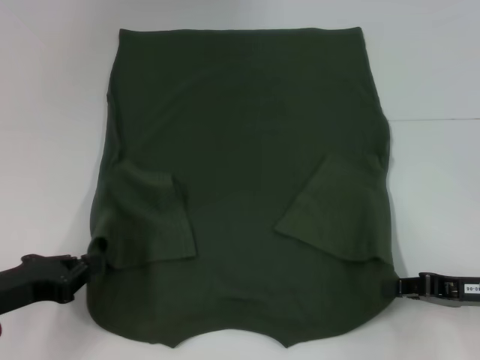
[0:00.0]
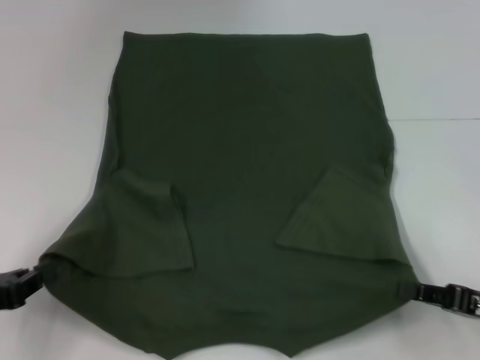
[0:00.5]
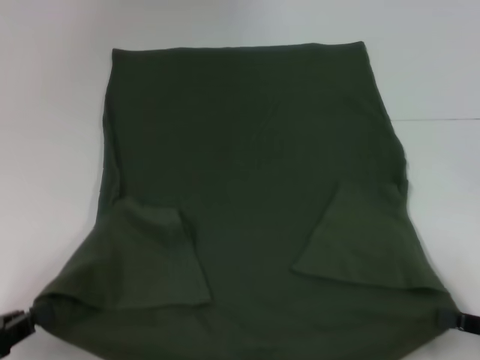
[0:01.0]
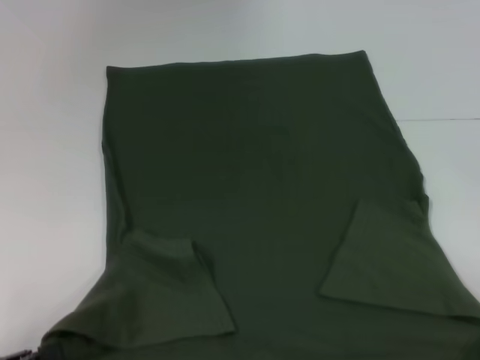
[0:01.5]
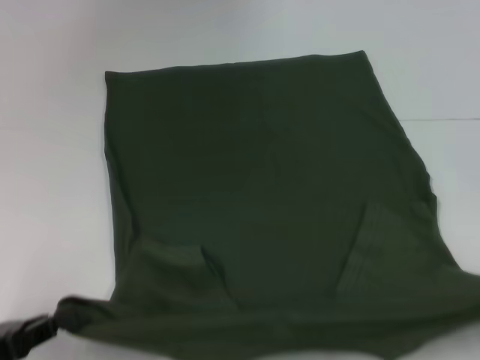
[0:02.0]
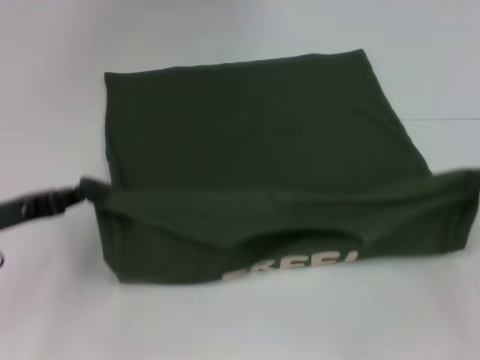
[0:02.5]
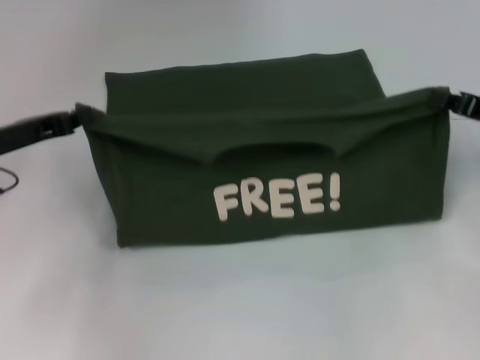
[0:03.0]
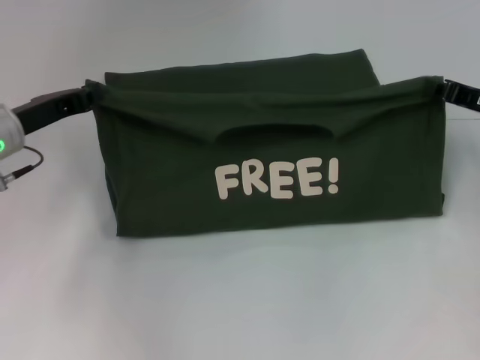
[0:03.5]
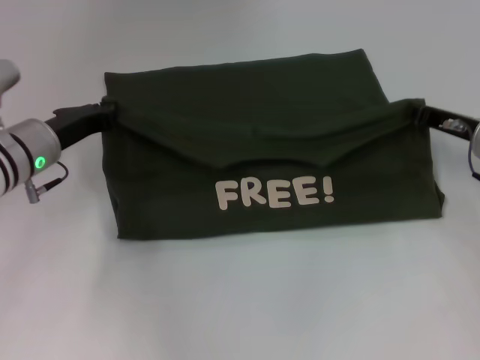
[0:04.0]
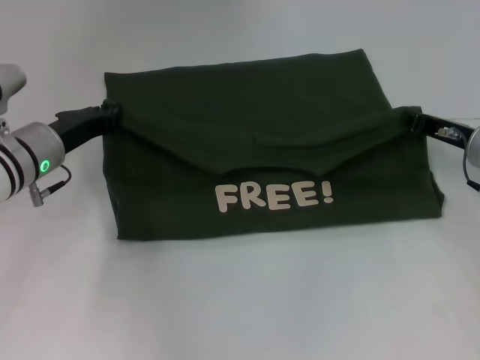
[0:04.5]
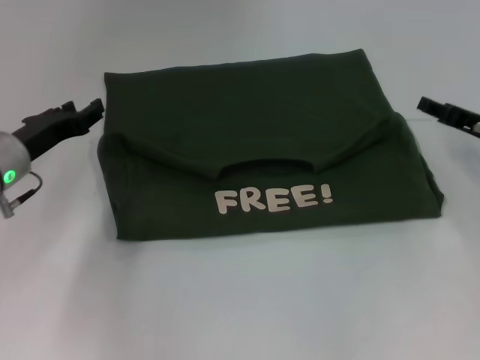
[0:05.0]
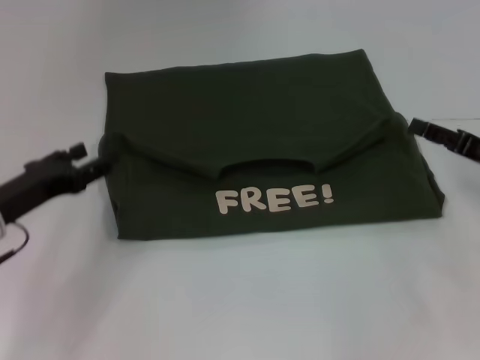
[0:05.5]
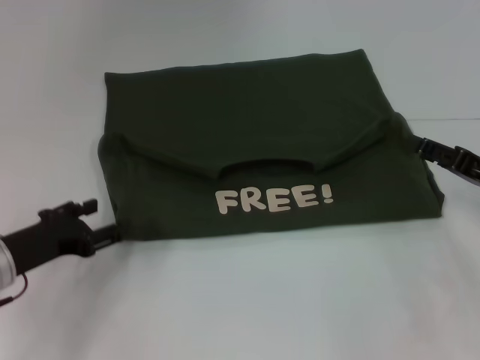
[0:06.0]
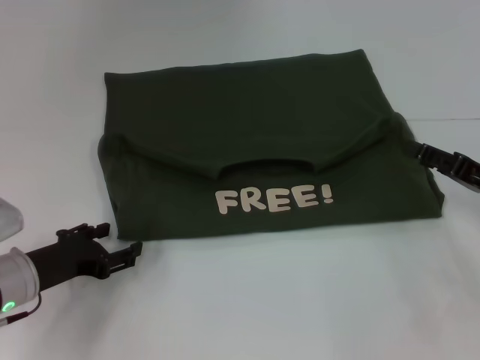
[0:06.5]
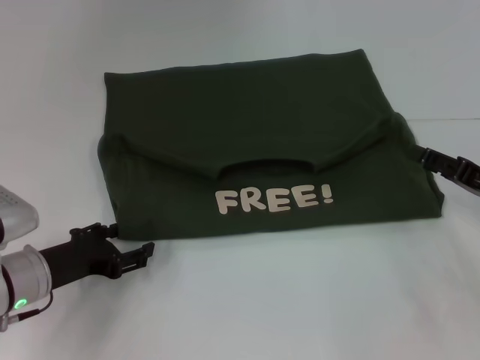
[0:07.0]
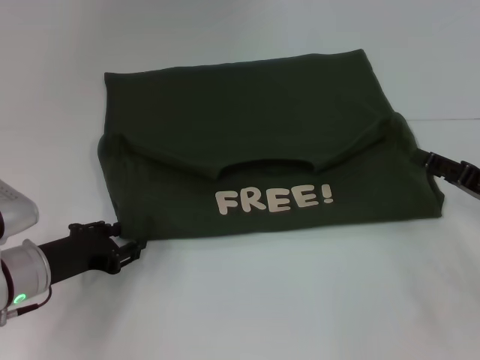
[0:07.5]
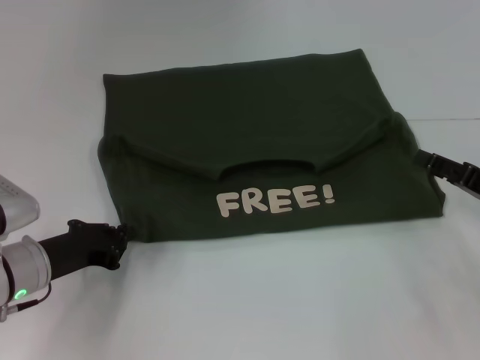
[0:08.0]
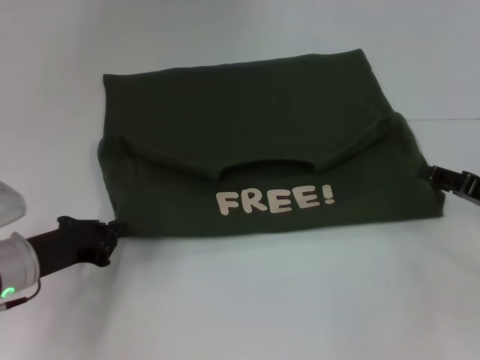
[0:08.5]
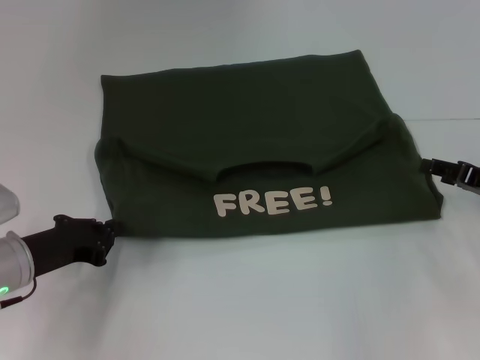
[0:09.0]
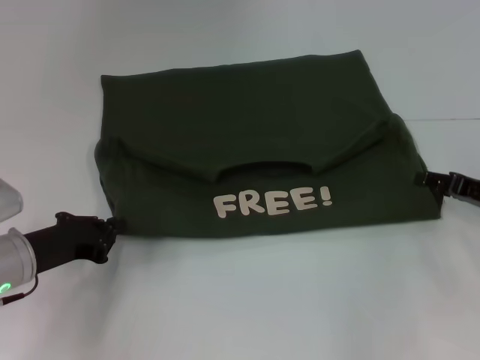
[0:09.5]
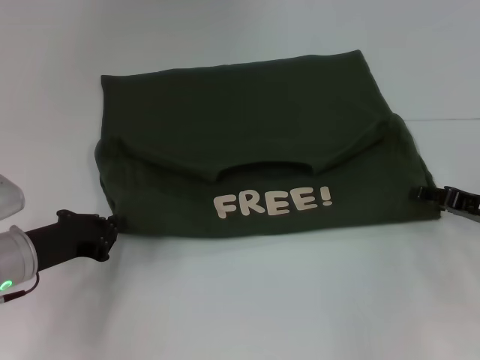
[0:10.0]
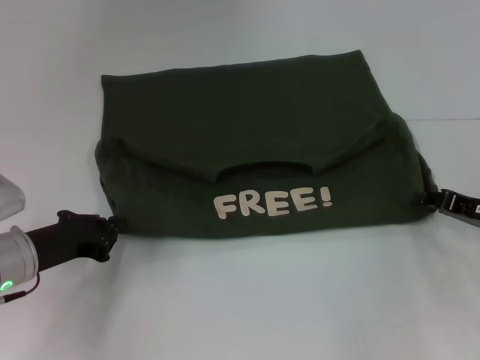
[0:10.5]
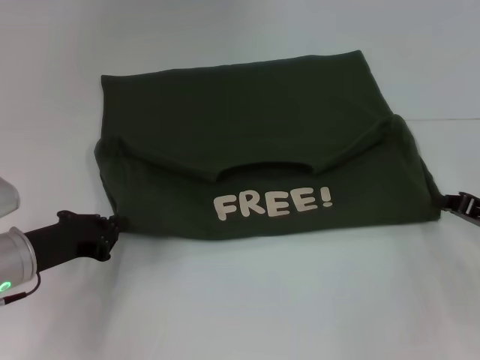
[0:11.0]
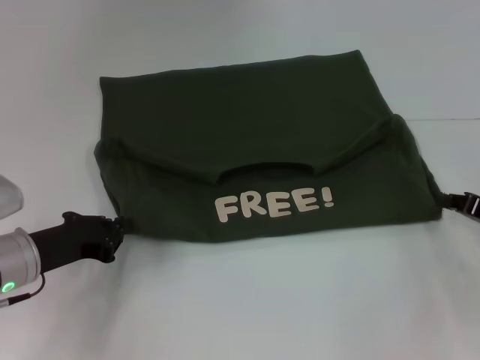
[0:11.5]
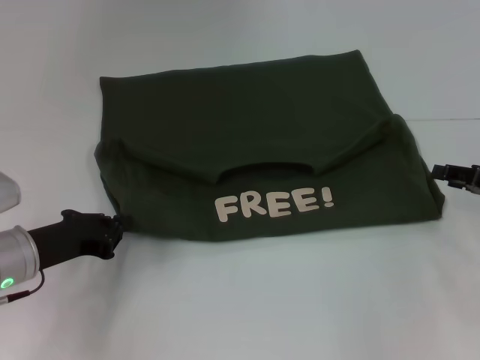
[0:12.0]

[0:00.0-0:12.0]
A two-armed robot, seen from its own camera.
Step, 0:00.5 to 0:05.0: Fold the clothes with your left hand.
Step, 0:00.5 to 0:05.0: Fold the clothes with your right hand.
0:00.0 to 0:02.0: The right gripper moves backward and to the right, roughly 15 cm. The left gripper heads backward, covering roughly 5 cm.
0:02.0 to 0:04.0: The right gripper moves forward and to the left, some 25 cm. Meanwhile the left gripper heads forward, covering about 25 cm.
0:04.0 to 0:06.0: The two grippers go roughly 10 cm backward. The left gripper opens its fingers, while the right gripper opens its fingers.
0:06.0 to 0:08.0: The left gripper closes up.
0:10.0 to 0:12.0: The right gripper closes and opens again.

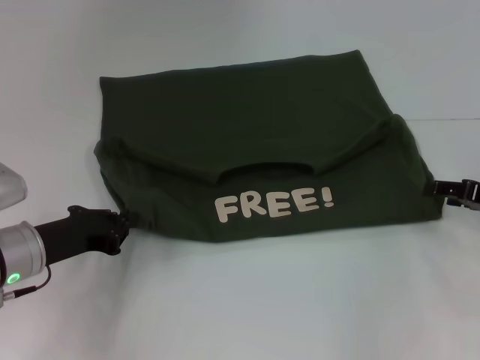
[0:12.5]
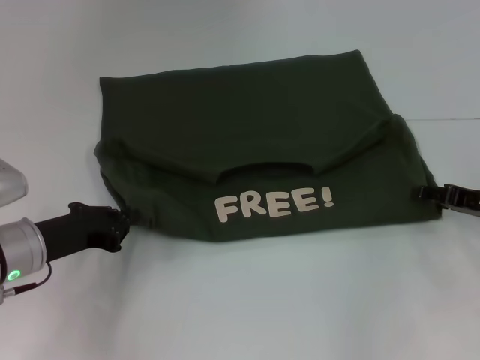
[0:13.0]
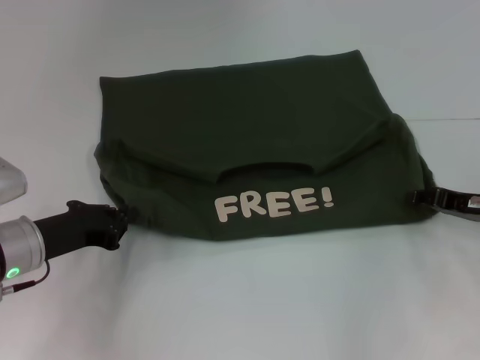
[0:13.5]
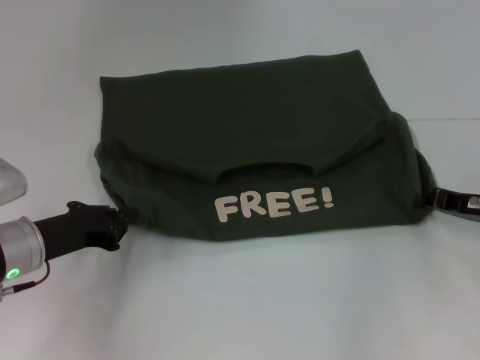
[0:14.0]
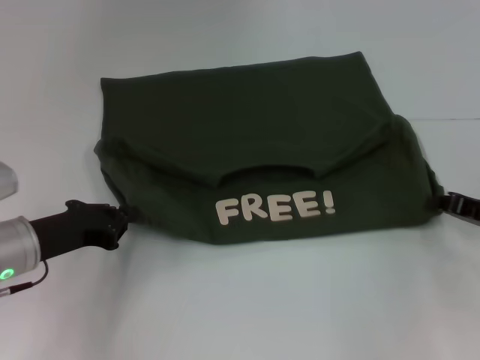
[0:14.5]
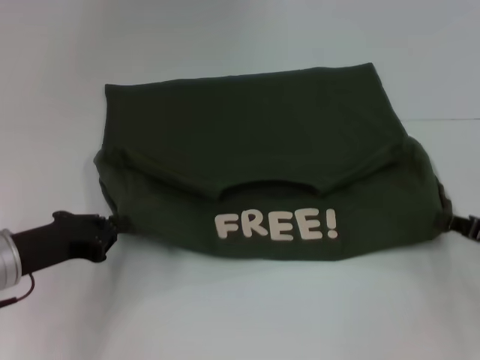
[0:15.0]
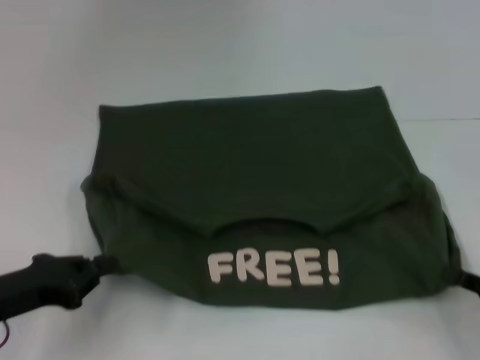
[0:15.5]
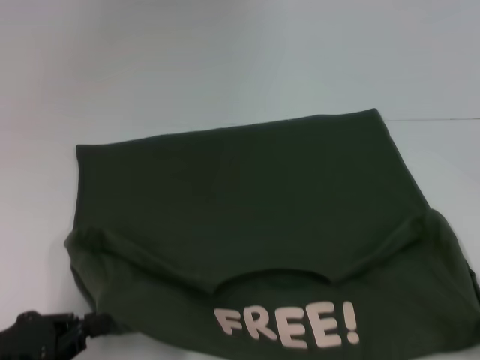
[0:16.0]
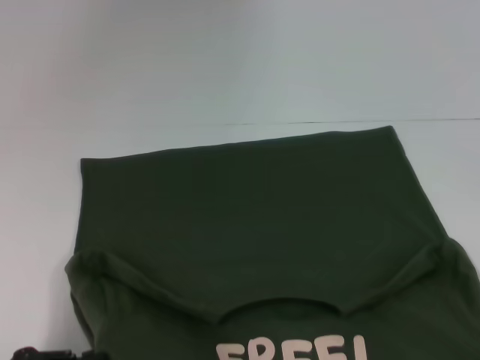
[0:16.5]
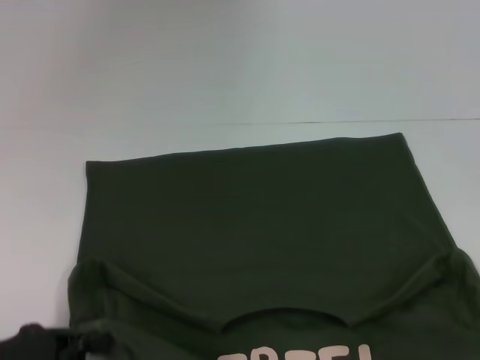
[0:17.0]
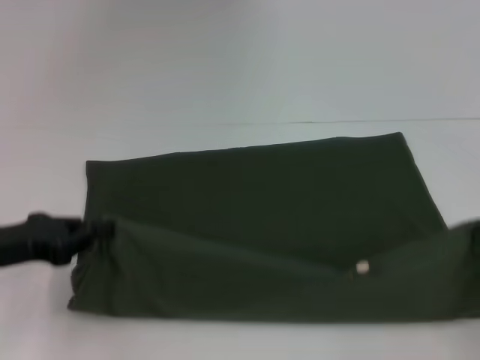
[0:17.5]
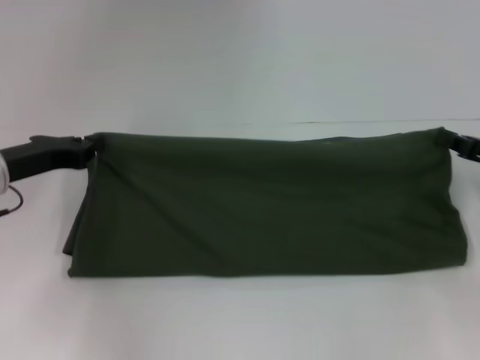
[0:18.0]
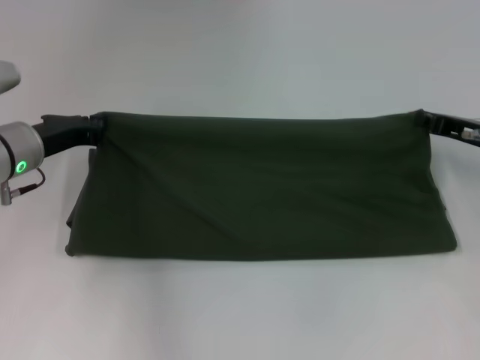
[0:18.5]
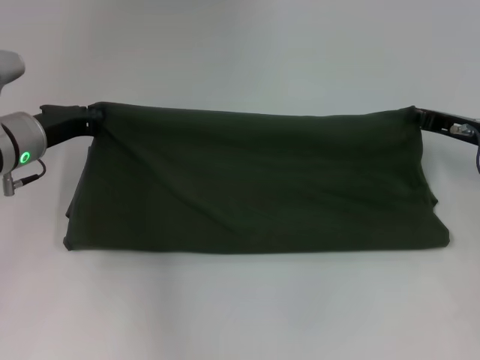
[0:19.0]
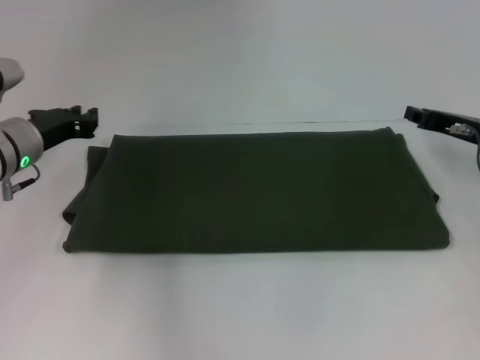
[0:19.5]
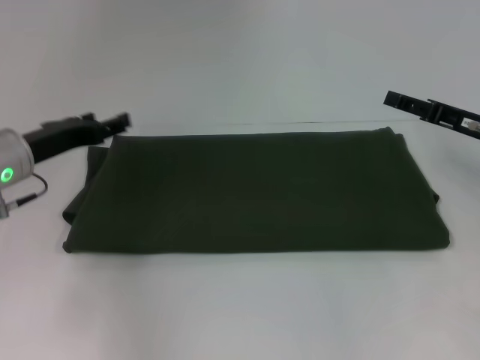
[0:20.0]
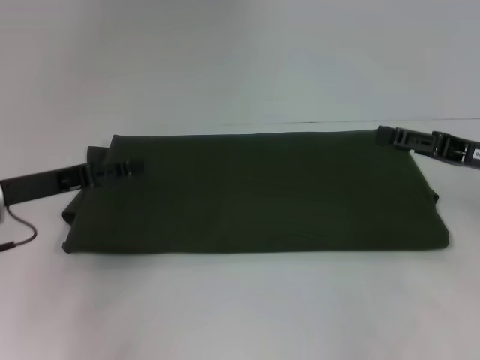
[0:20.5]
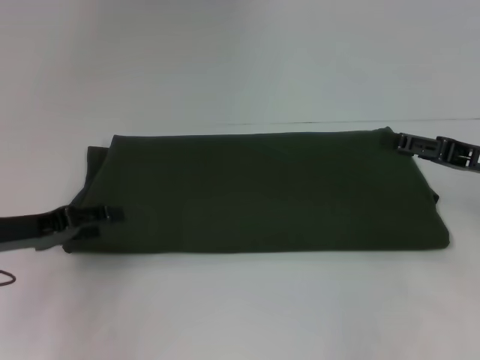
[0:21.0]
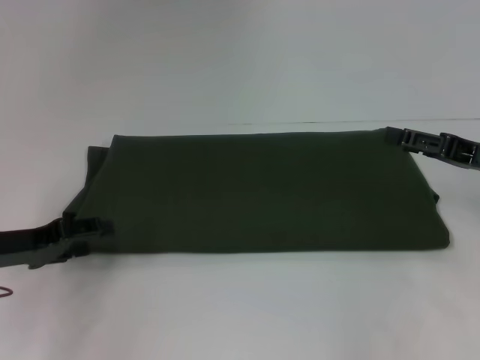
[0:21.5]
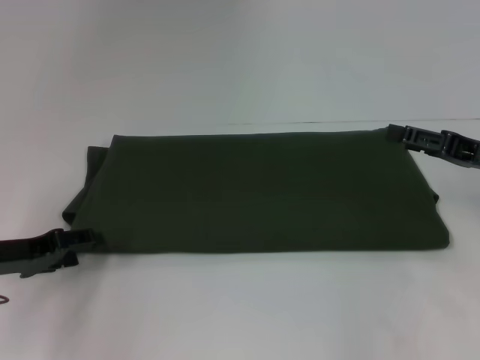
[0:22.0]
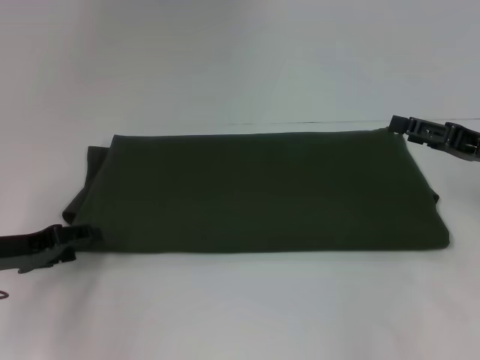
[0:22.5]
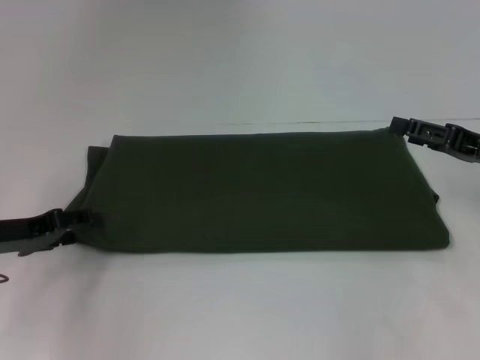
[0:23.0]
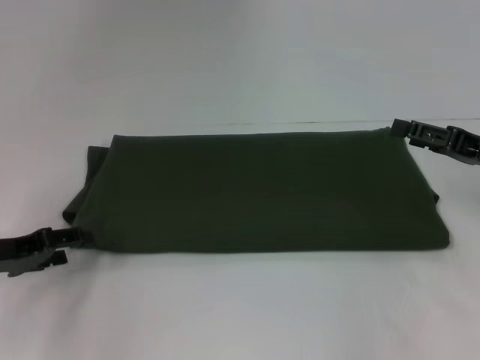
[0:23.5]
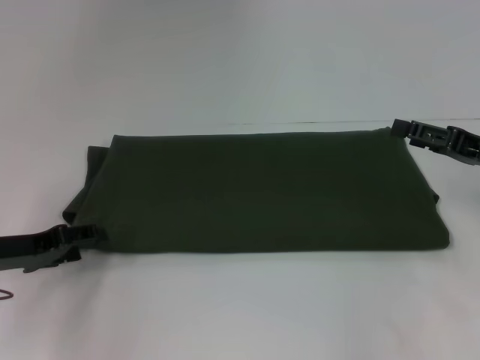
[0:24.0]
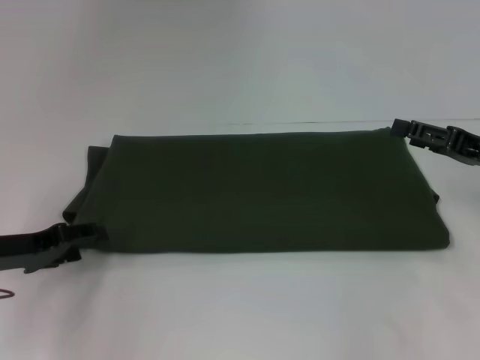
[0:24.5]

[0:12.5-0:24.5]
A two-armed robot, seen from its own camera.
Step, 0:12.5 to 0:16.5: Pull the clothes with your left hand.
Step, 0:12.5 to 0:16.5: Pull the clothes with your right hand.
Step, 0:17.0 to 0:19.5: Fold the clothes with your right hand.
0:12.5 to 0:14.5: The right gripper closes its fingers.
0:14.5 to 0:16.5: The left gripper travels backward by approximately 15 cm. The right gripper travels backward by some 25 cm.
0:16.5 to 0:18.5: Both grippers move forward, roughly 25 cm.
0:18.5 to 0:20.5: The two grippers go approximately 5 cm backward. The right gripper opens up. Meanwhile the left gripper opens.
0:20.5 to 0:22.5: The left gripper goes approximately 5 cm downward.
0:22.5 to 0:24.5: There are only small adjustments of the grippers.

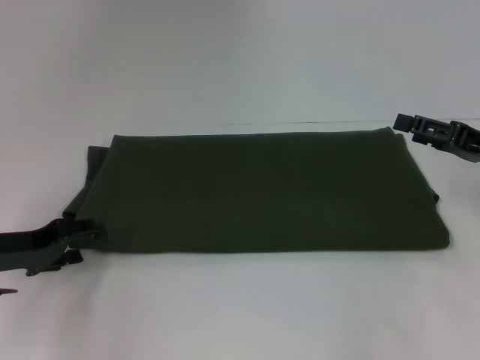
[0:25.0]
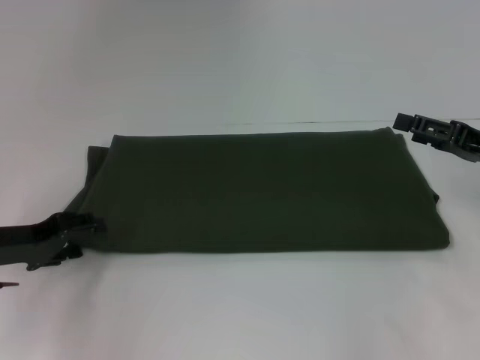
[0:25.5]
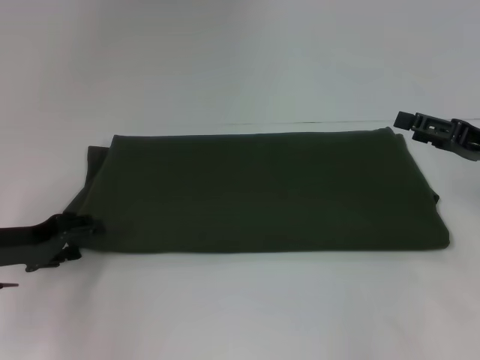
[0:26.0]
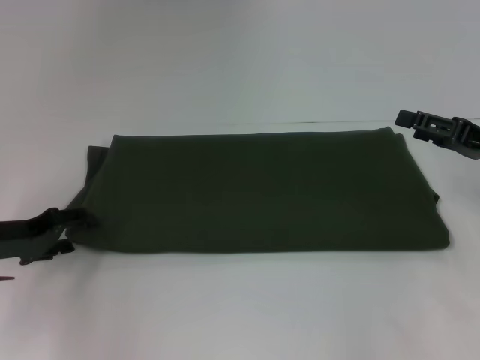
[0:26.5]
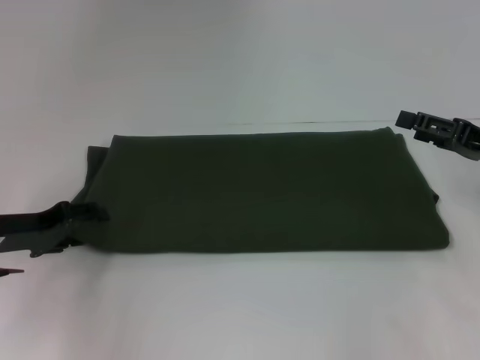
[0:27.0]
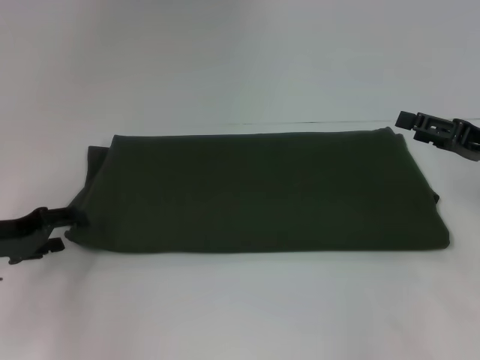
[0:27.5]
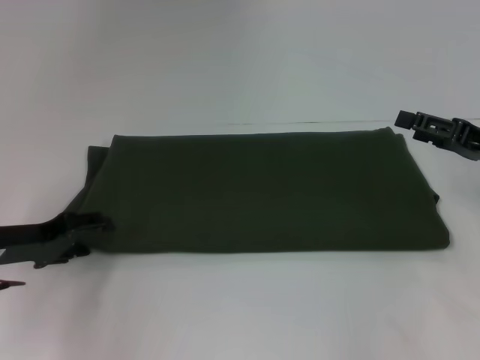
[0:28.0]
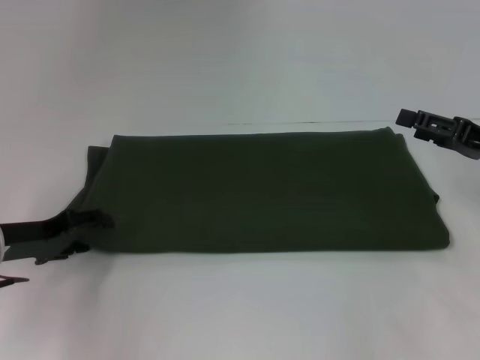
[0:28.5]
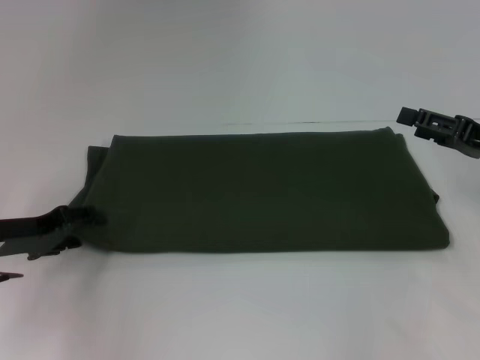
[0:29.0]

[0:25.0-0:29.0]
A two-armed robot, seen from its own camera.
0:25.0 to 0:29.0: The grippers make only small movements.
